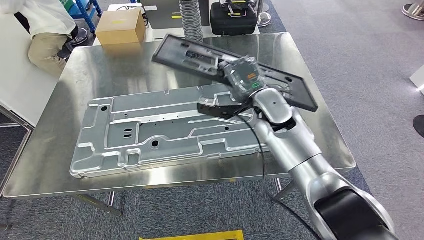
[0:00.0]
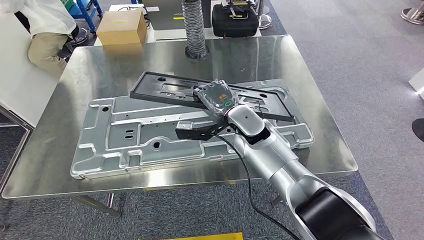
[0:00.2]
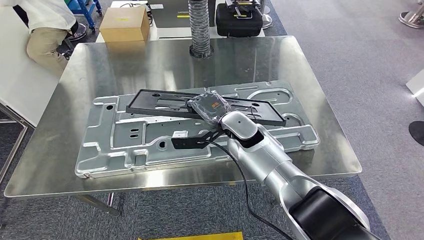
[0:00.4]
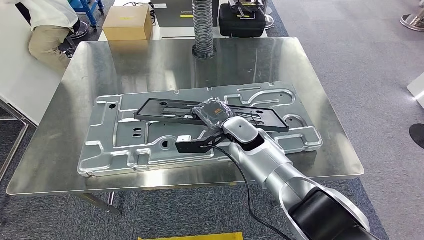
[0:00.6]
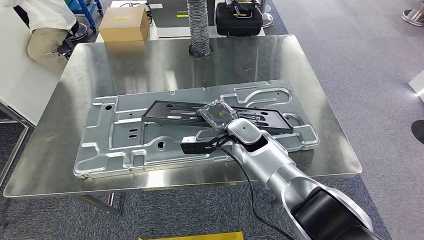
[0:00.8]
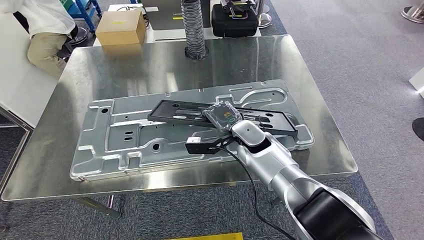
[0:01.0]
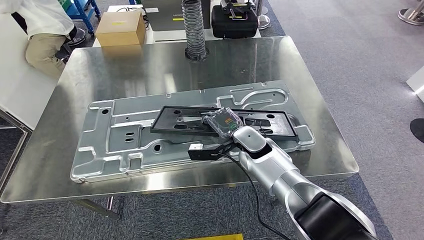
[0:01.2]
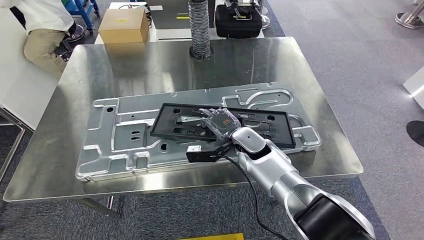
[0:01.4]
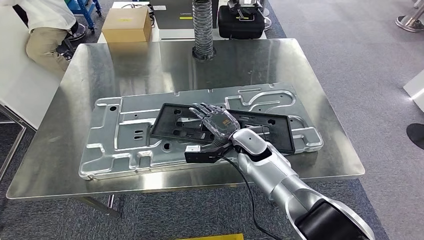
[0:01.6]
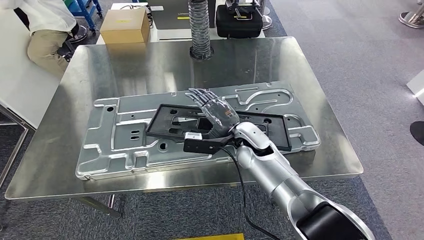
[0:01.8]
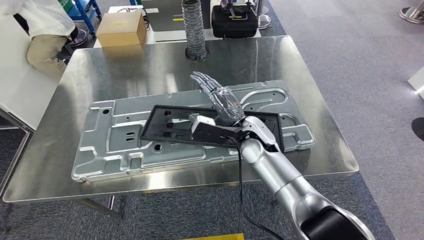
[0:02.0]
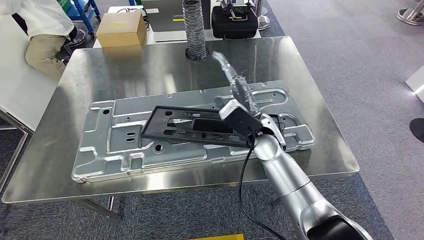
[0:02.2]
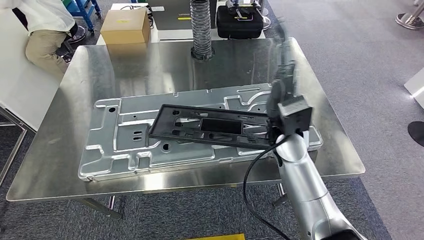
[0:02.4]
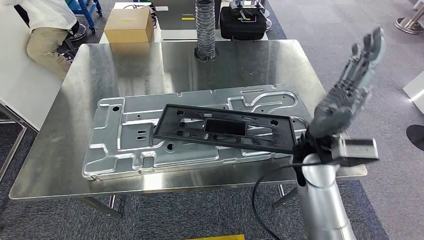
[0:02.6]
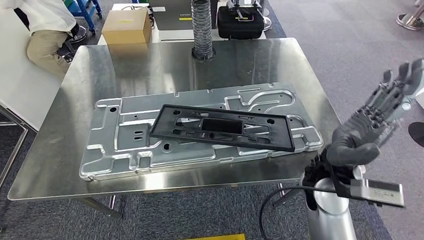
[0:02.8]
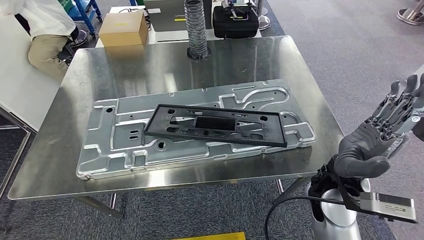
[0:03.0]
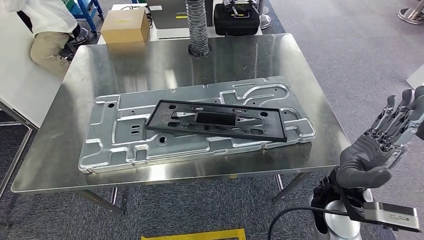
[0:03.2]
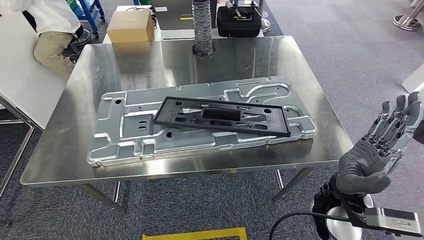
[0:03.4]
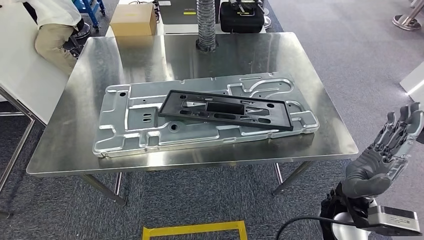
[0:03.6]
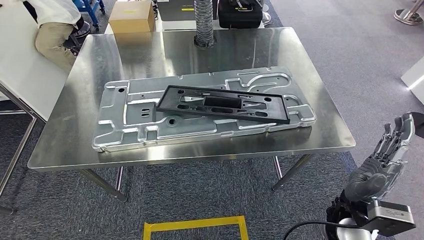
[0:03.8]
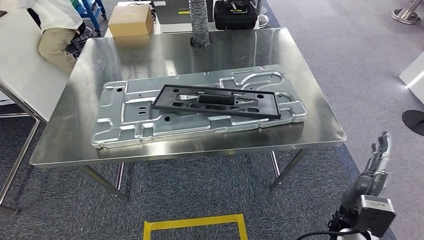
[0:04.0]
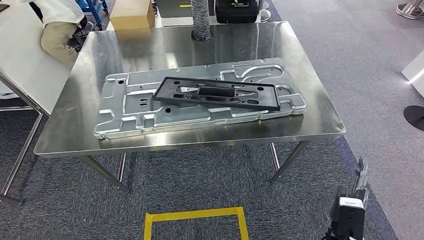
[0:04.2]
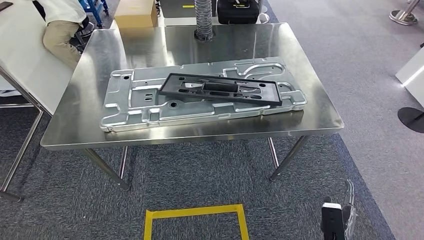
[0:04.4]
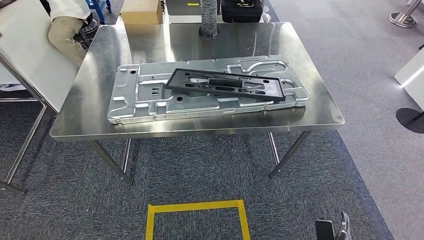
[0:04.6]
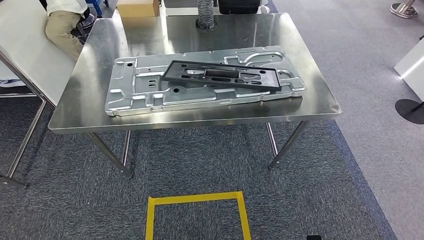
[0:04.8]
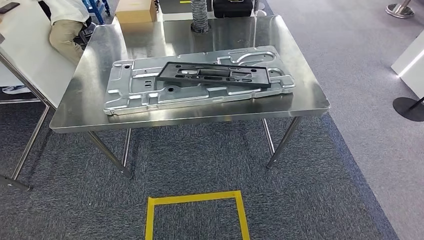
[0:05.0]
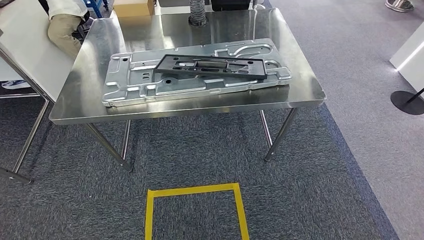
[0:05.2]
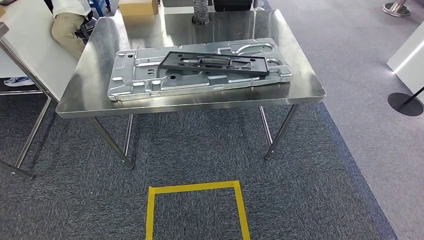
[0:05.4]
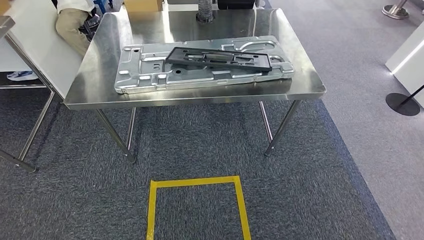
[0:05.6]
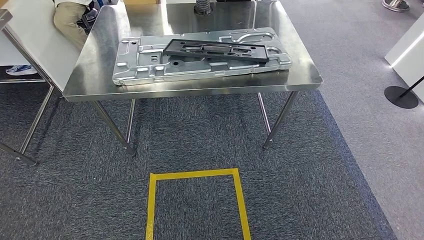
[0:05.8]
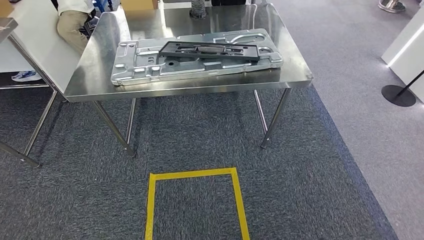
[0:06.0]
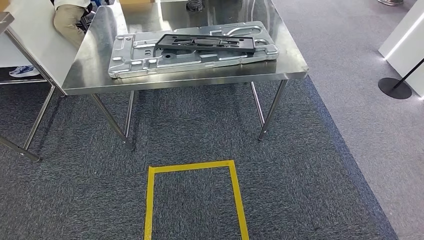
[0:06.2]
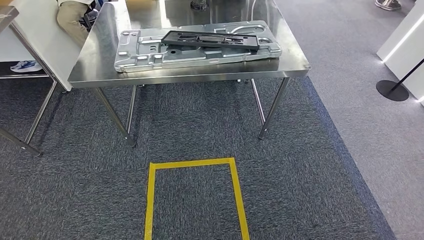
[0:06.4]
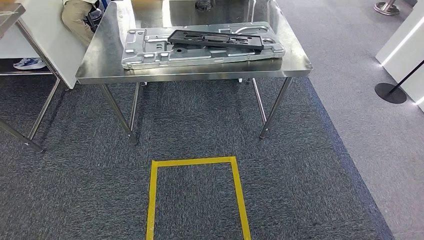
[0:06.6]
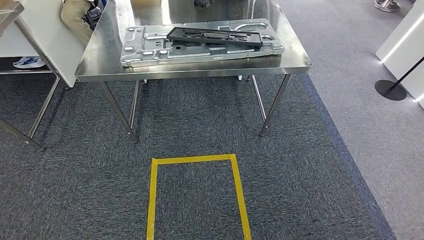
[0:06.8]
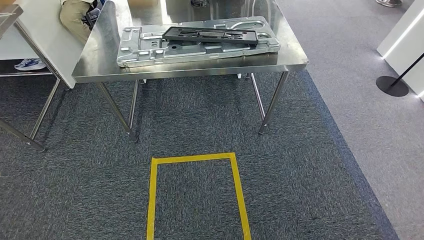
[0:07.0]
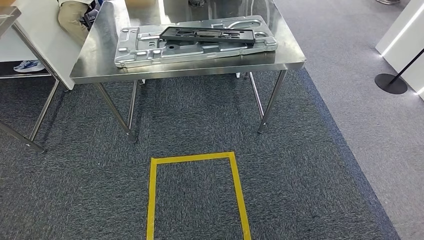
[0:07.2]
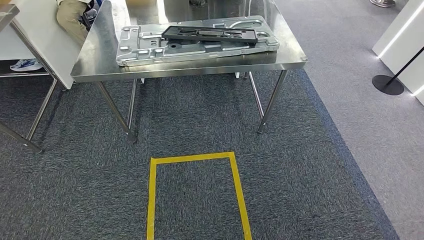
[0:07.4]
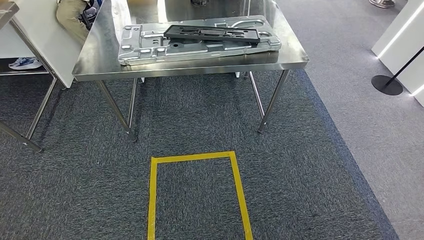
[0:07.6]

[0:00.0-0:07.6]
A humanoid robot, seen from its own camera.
Step, 0:00.0 to 0:03.2: Insert the small parts into the corresponding slots on the workbench.
Step, 0:03.4 to 0:07.6: Return to the initial position at the workbench.
